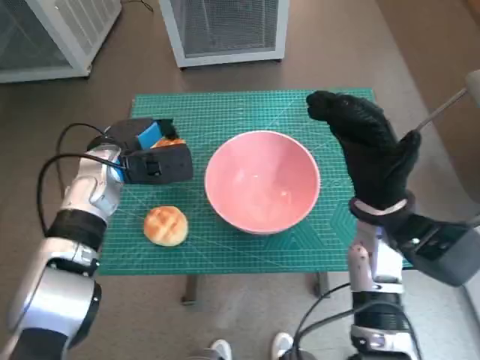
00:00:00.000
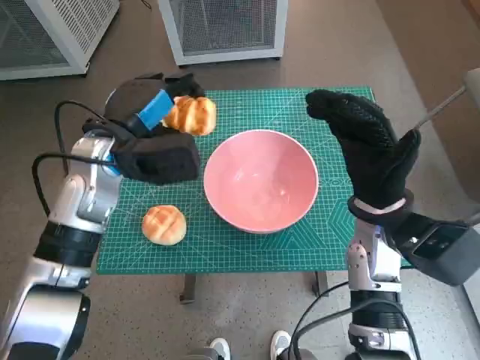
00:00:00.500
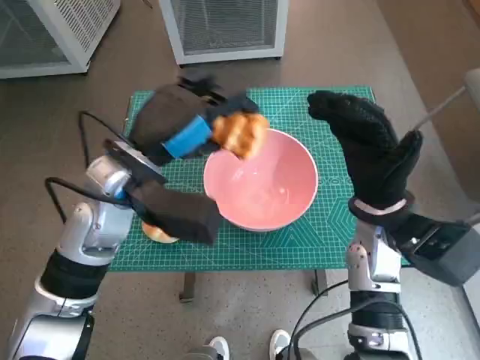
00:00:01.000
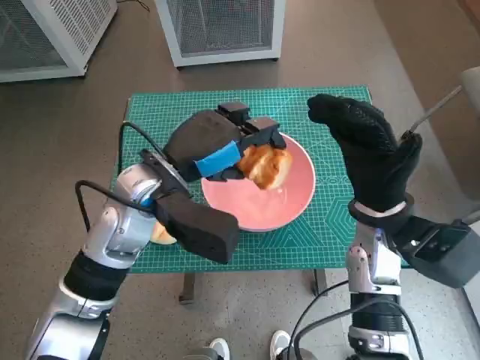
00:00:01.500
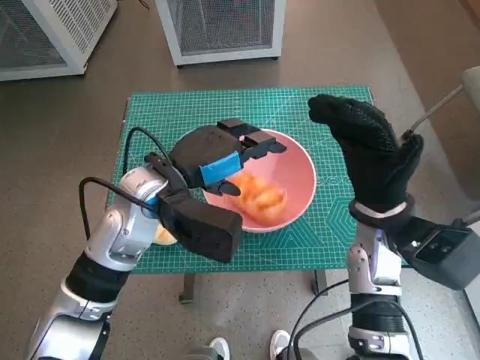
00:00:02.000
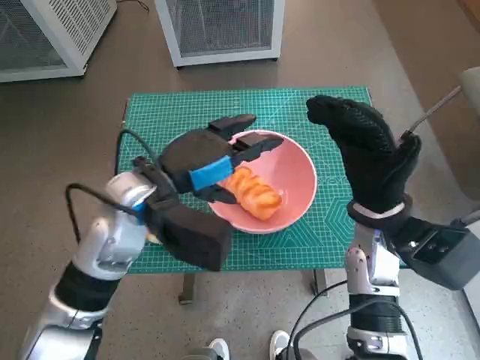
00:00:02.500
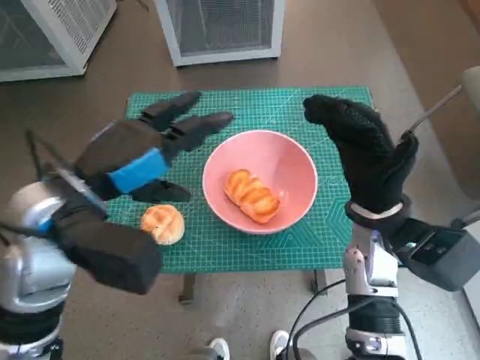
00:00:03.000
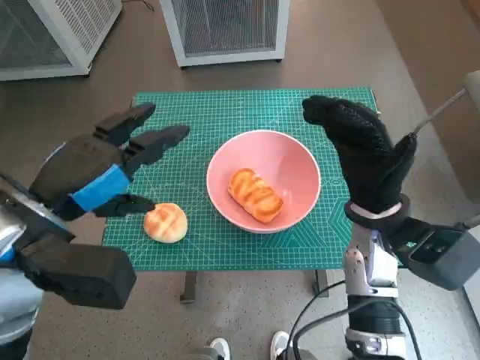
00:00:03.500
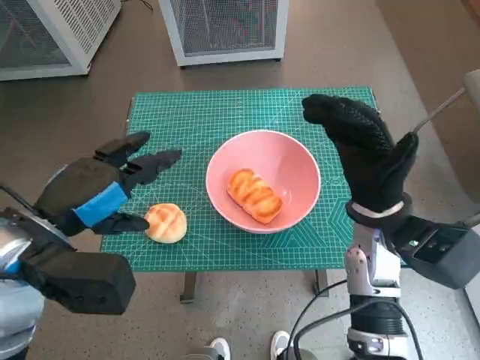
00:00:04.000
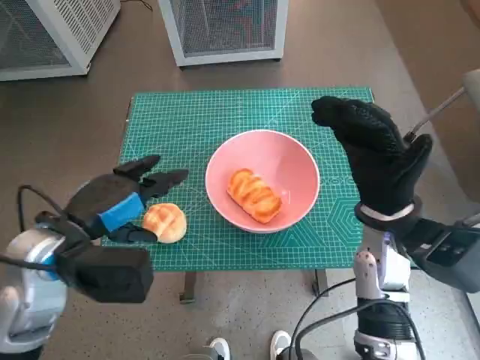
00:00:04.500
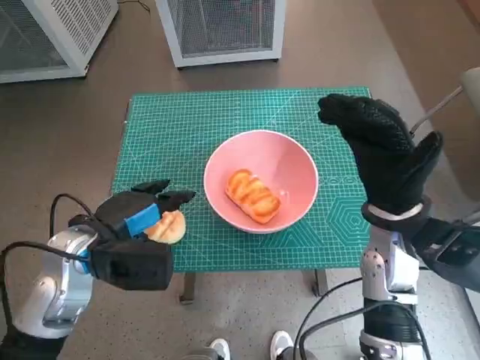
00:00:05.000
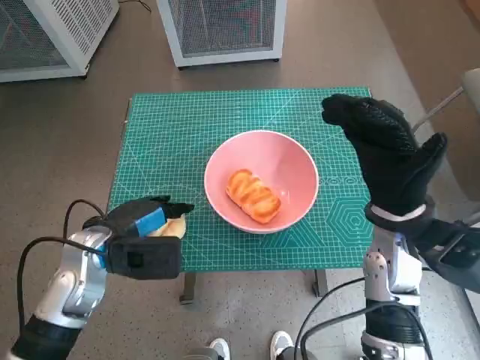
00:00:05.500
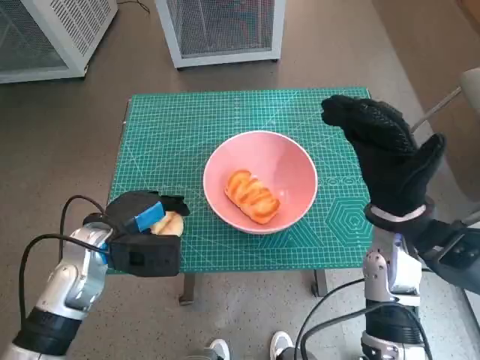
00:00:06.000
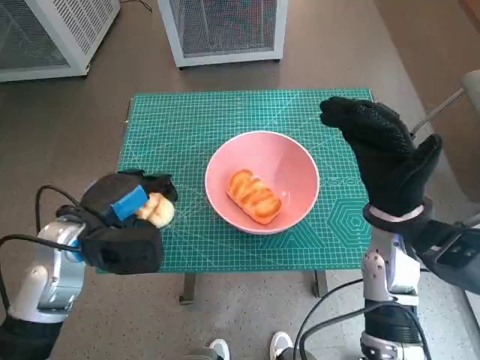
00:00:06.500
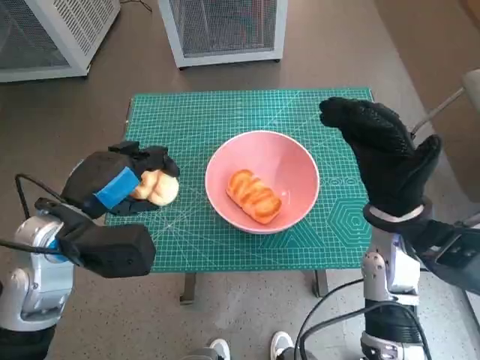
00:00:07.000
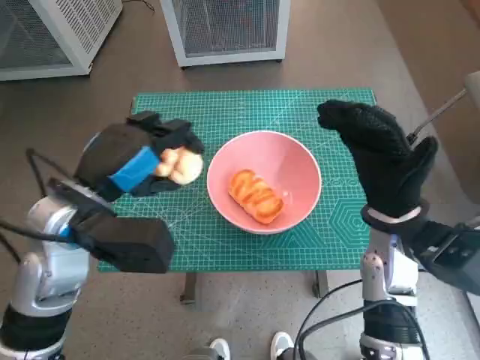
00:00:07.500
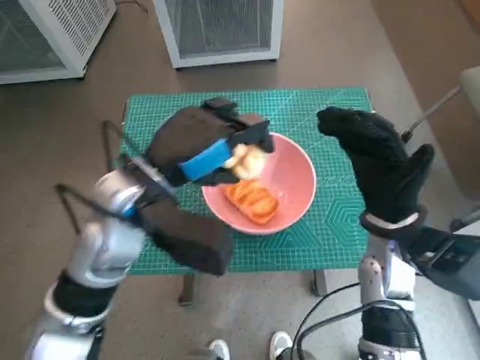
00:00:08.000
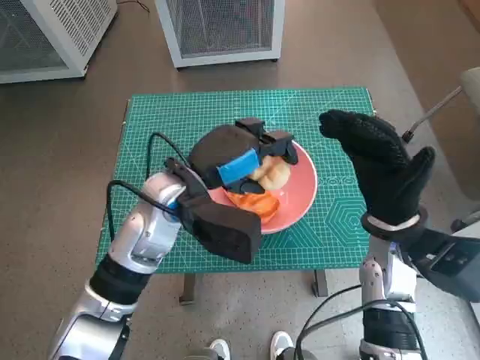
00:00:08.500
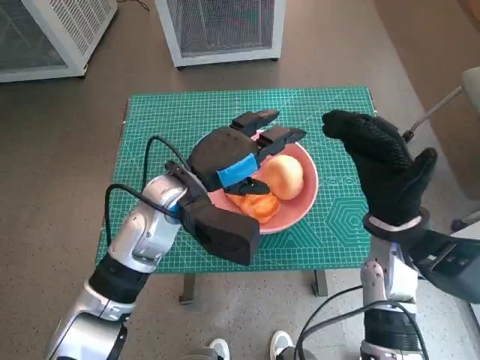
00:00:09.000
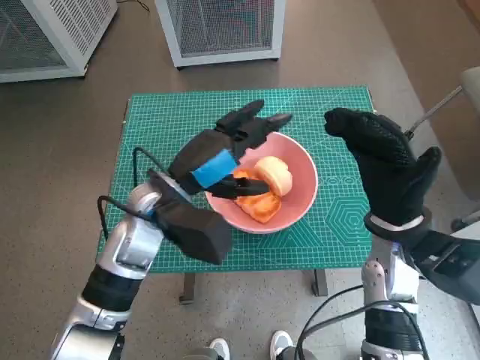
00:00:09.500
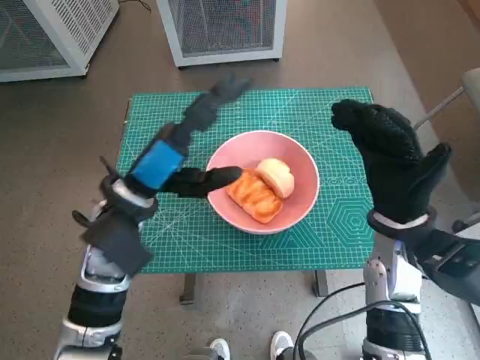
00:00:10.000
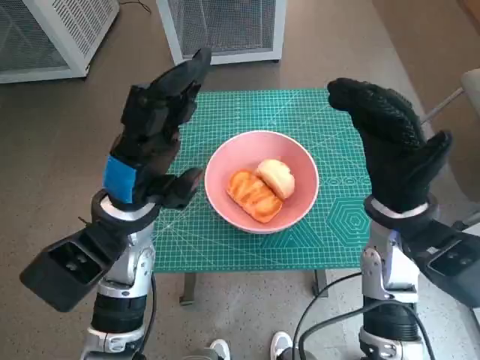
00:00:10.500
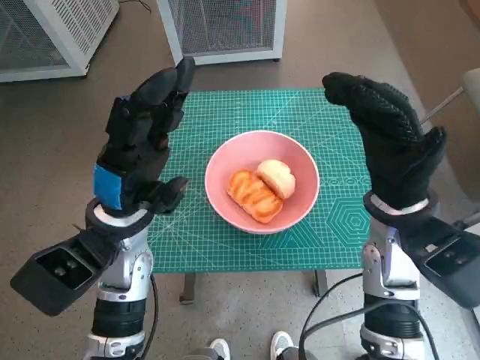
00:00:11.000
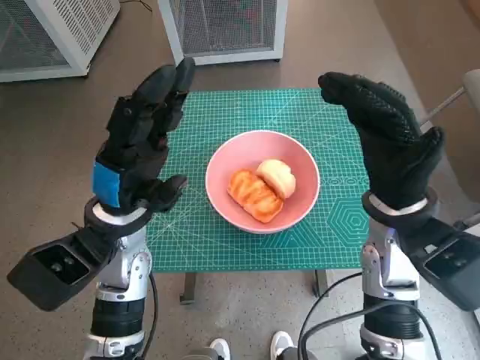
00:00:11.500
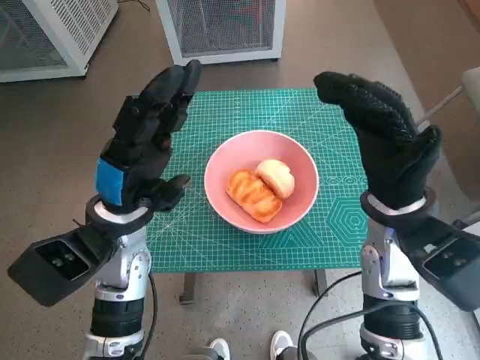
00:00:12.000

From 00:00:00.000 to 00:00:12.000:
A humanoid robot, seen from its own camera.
Task of the whole recording: Push the bowl into the center of the table and put the bread into the bowl.
Step, from 00:00:00.000 to 00:00:01.500: Place the long bread in pink bowl with left hand.
Step, from 00:00:02.000 to 00:00:05.500: Grasp the round bread with left hand.
Step, from 00:00:06.000 to 00:00:08.500: Place the round bread in pink bowl with left hand.
From 00:00:00.000 to 00:00:02.000: The left hand travels to the right and backward by roughly 10 cm.
From 00:00:02.000 to 00:00:04.000: The left hand goes approximately 15 cm to the left and backward.
From 00:00:04.000 to 00:00:06.000: The left hand shifts some 15 cm downward and forward.
From 00:00:06.000 to 00:00:08.000: The left hand shifts some 15 cm upward and to the right.
From 00:00:08.000 to 00:00:10.000: The left hand changes place by approximately 5 cm.
